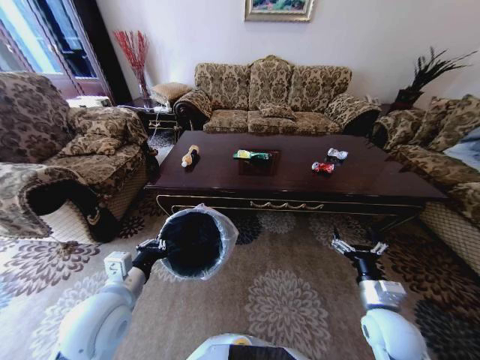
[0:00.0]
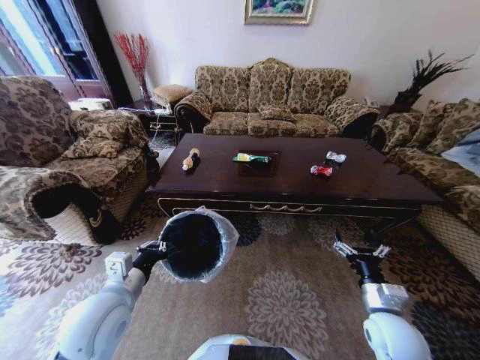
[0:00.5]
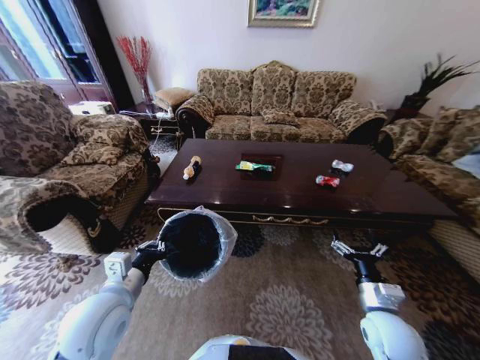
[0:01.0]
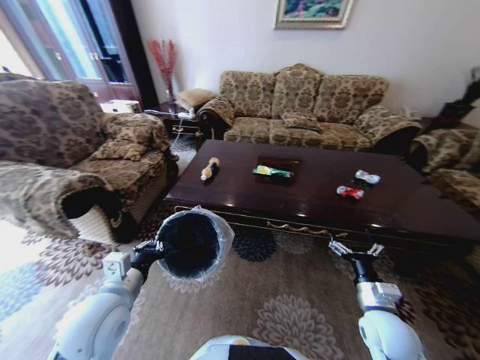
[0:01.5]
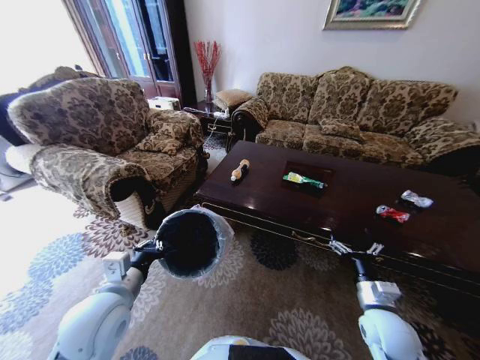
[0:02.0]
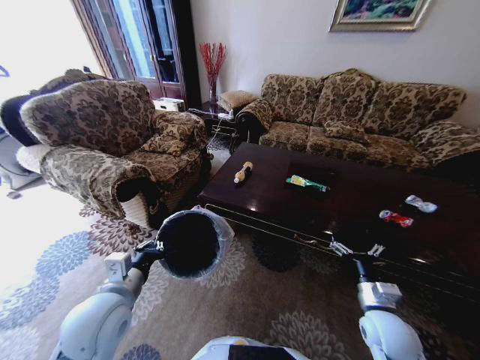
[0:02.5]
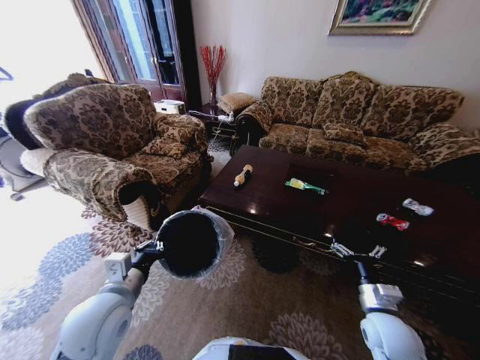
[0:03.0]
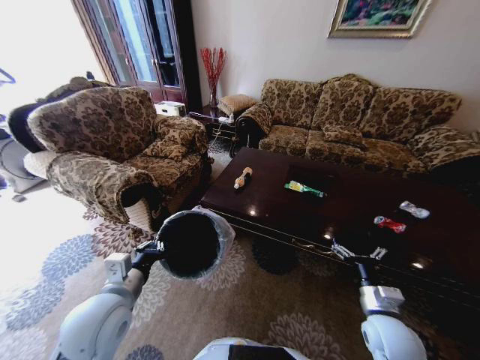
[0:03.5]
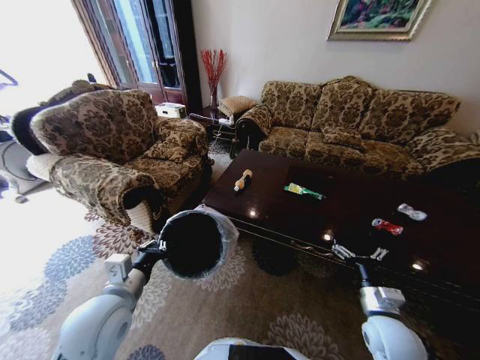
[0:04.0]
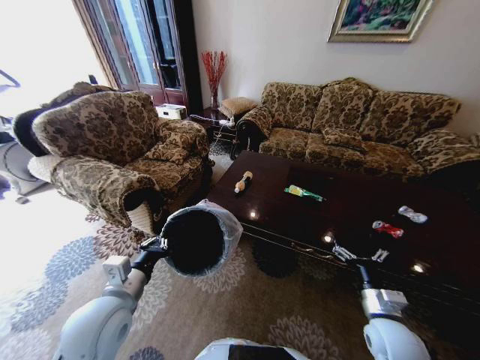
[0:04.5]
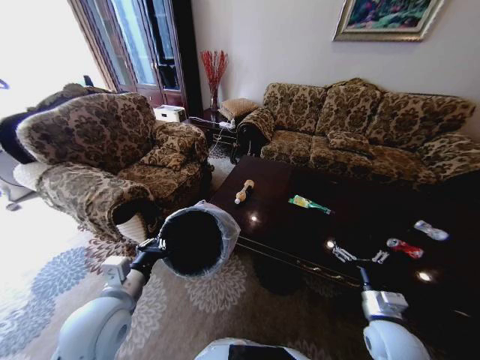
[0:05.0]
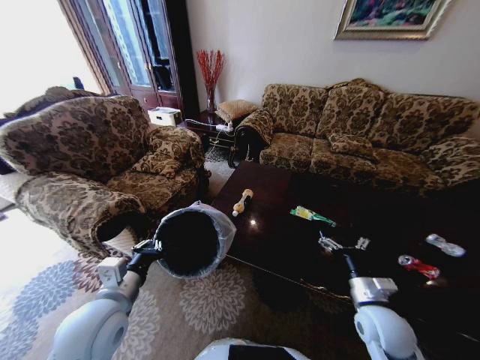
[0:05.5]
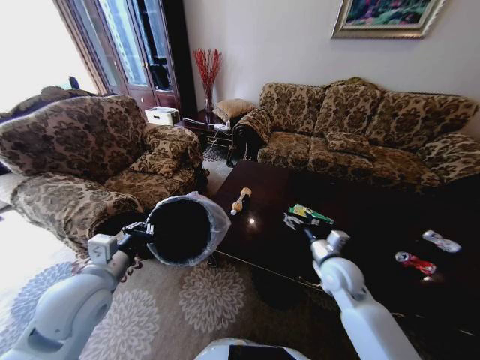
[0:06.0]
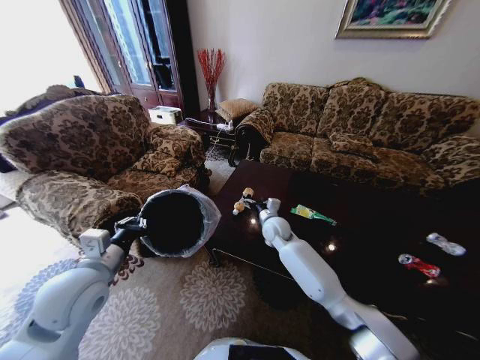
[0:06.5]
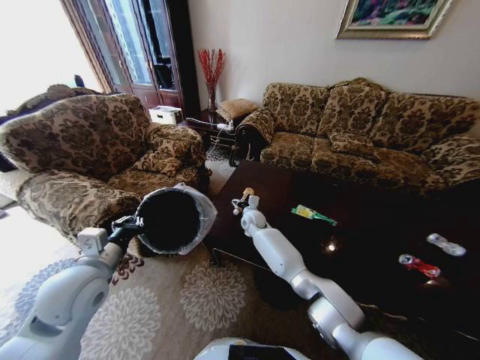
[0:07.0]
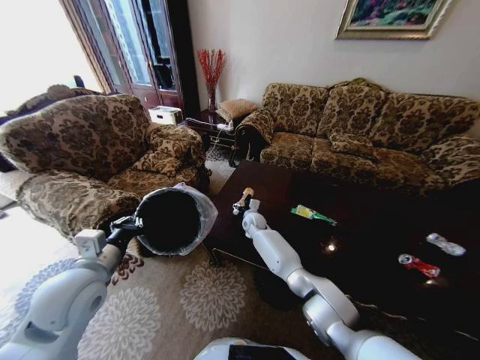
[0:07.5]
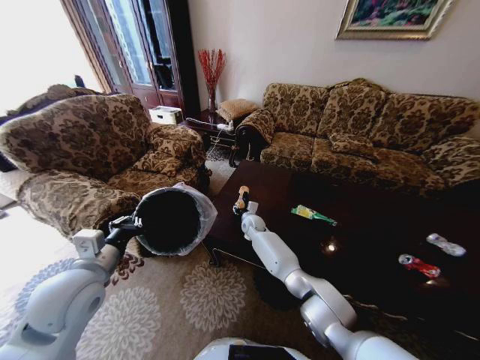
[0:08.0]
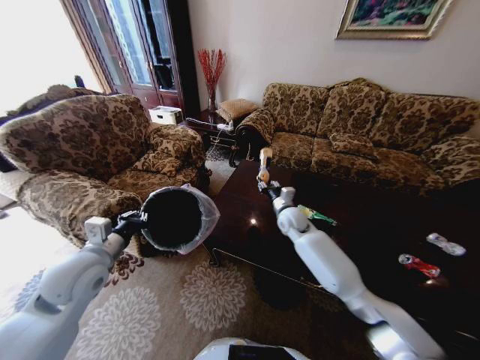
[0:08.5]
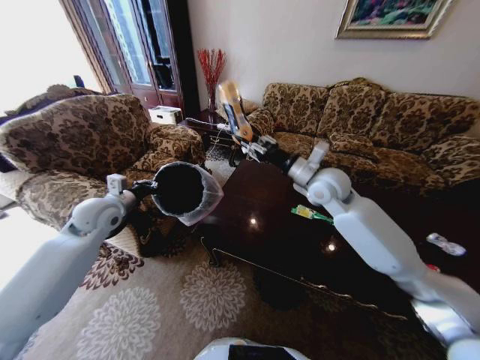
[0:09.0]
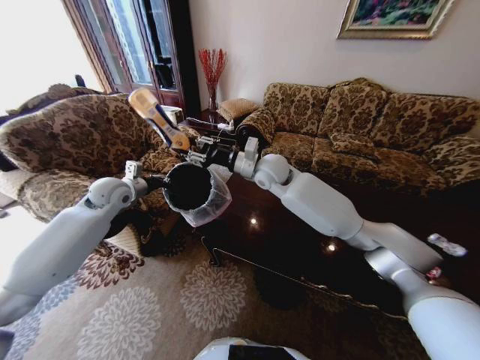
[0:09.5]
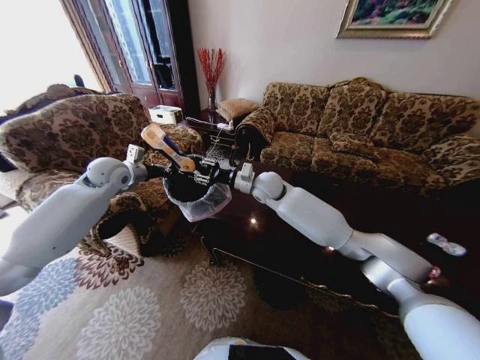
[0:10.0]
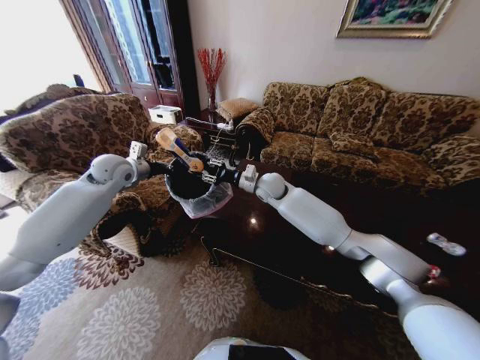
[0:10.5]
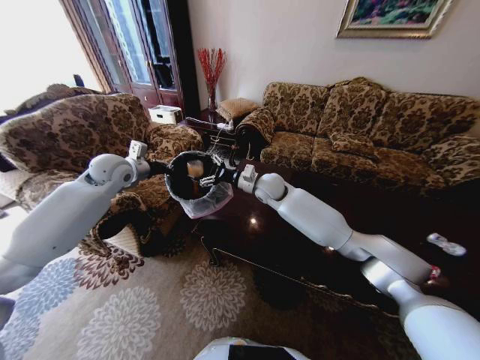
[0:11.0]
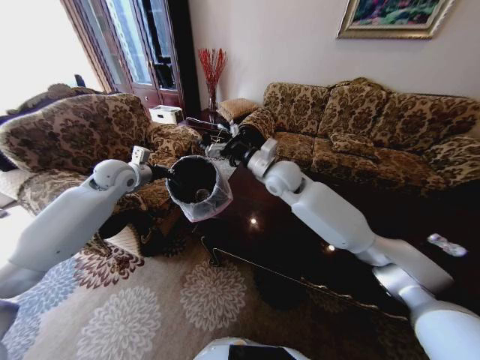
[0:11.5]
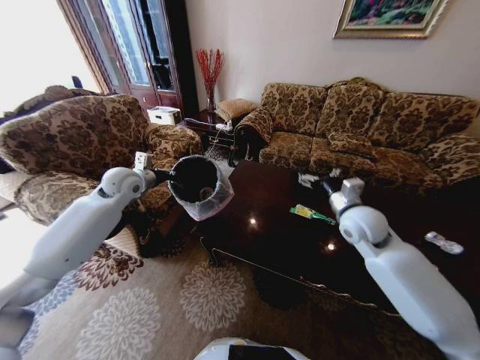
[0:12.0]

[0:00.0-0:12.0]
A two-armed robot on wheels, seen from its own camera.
Task of the whole recording: Move to the front of the table and place the trash on the table into the trash bin.
0:04.0 to 0:06.0: The right gripper goes approximately 15 cm forward and to the left. The left gripper shifts by some 5 cm.
0:06.0 to 0:08.0: The right gripper moves forward, to the left and downward, approximately 35 cm, and closes.
0:08.0 to 0:10.0: The left gripper goes about 30 cm forward; the right gripper shifts about 25 cm upward.
0:10.0 to 0:12.0: The right gripper is displaced to the right and backward by some 25 cm, and opens its fingers.

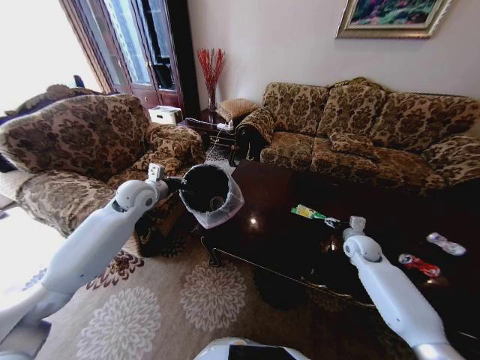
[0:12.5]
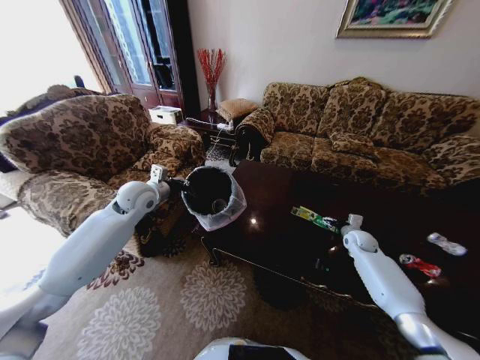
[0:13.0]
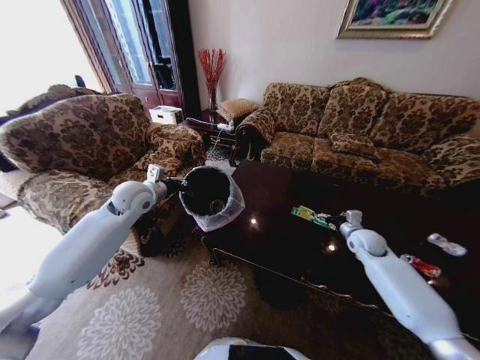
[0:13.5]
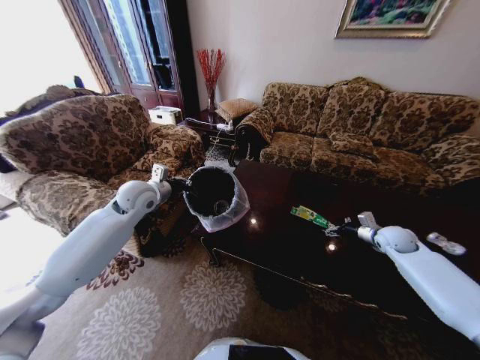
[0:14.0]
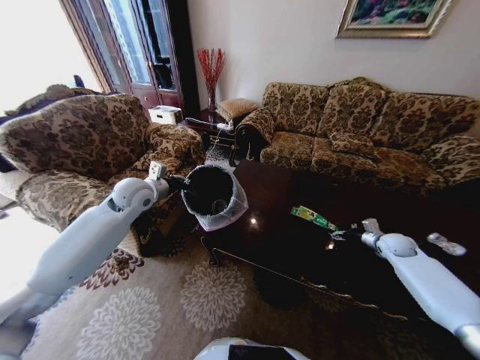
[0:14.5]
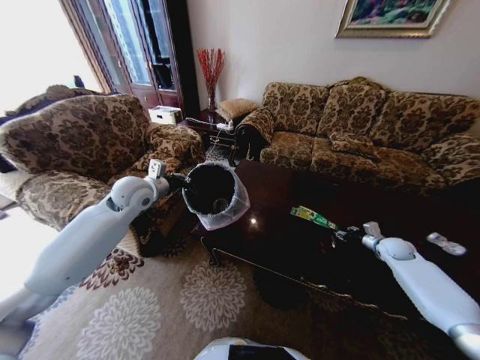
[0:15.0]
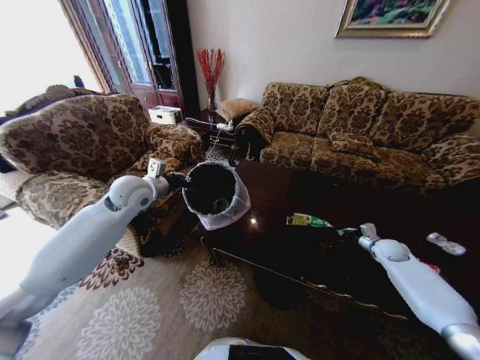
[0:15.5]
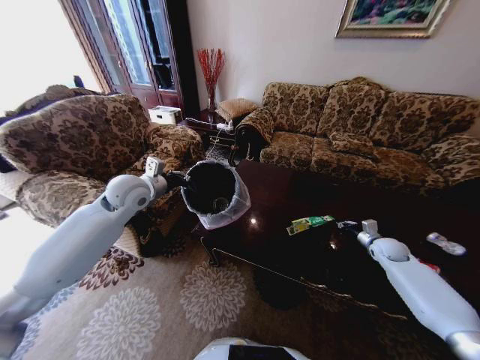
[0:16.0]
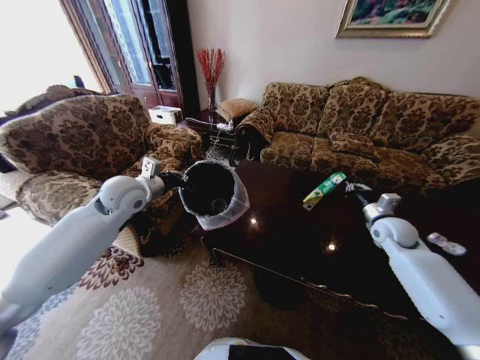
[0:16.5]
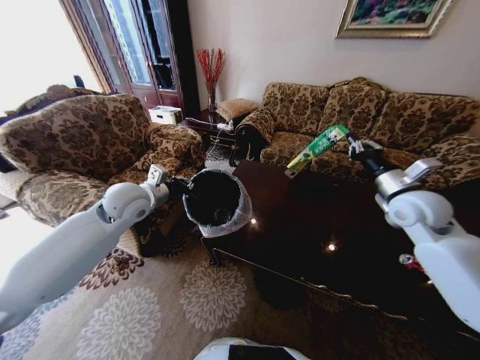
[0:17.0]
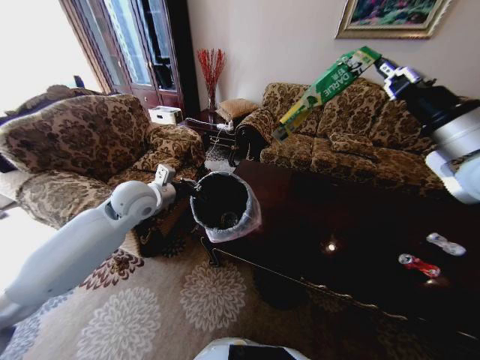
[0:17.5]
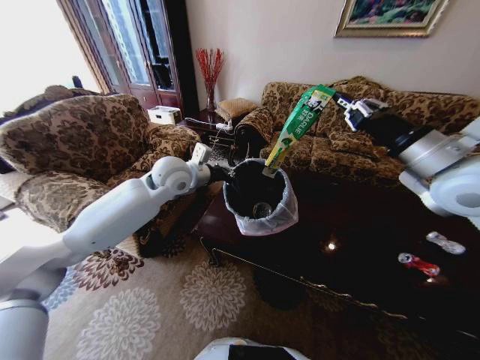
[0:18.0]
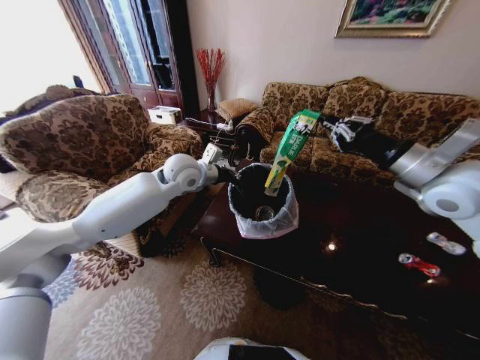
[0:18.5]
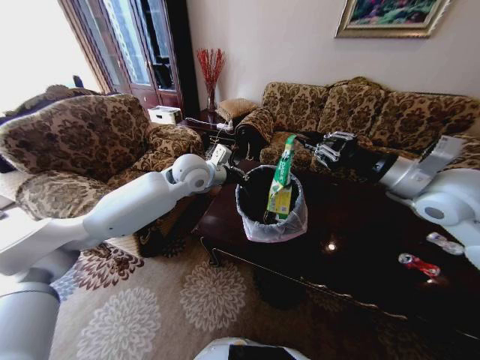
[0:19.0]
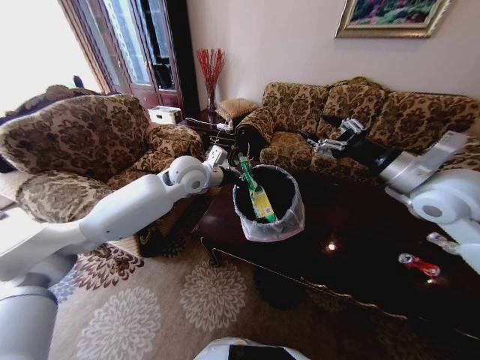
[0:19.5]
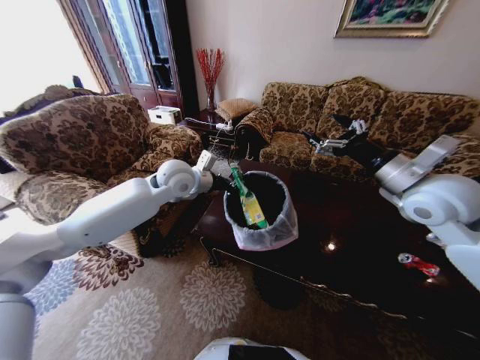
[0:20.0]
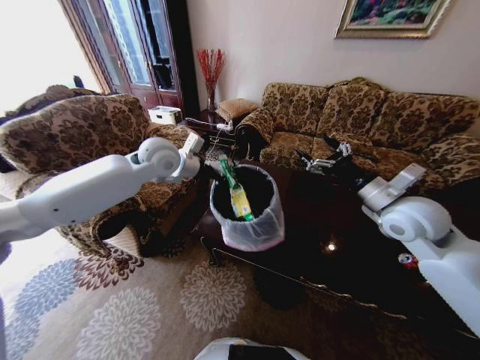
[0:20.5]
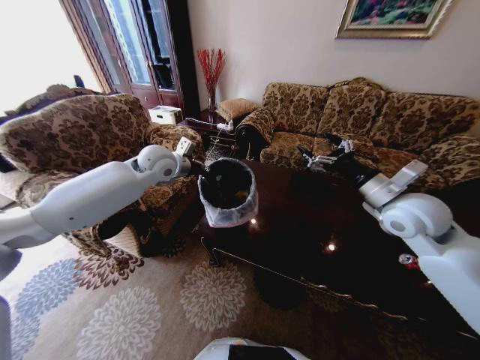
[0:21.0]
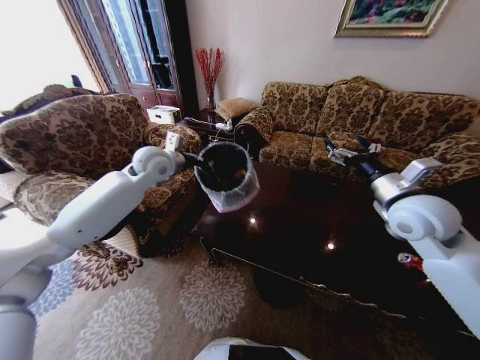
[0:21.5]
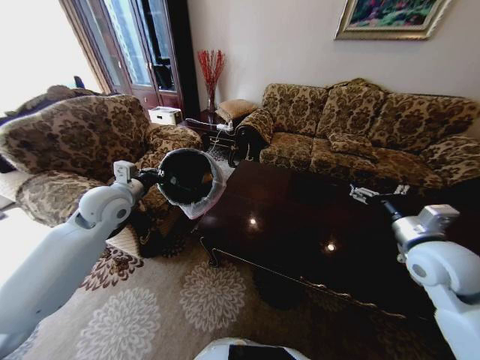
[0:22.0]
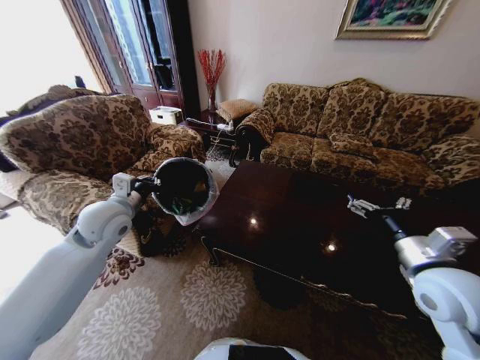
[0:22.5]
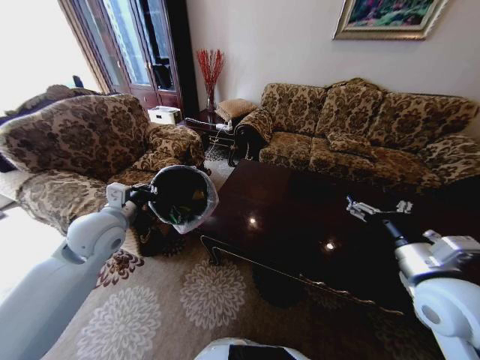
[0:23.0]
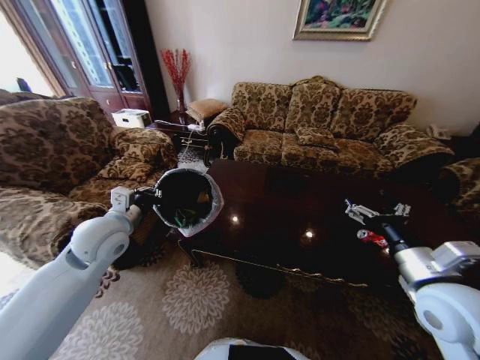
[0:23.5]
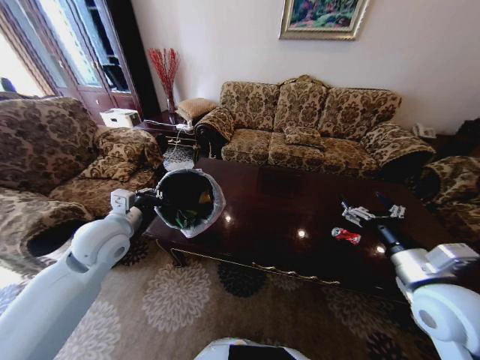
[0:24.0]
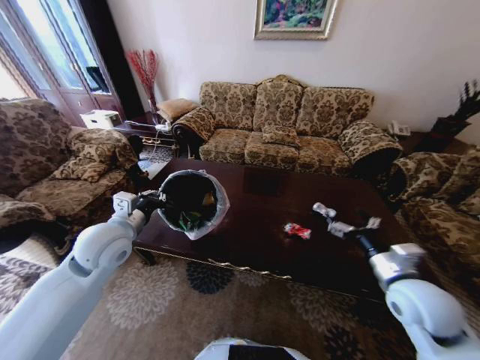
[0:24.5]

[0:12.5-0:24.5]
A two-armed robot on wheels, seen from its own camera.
Task of the whole recording: Move to the front of the table and place the trash on the table into the trash bin.
0:12.5 to 0:14.5: The right gripper travels to the right by about 15 cm.
0:14.5 to 0:16.5: The right gripper travels upward and to the left by approximately 10 cm, and closes.
0:16.5 to 0:18.5: The right gripper moves upward and to the left, some 25 cm. The left gripper shifts roughly 15 cm to the right and forward.
0:18.5 to 0:20.5: The right gripper shifts approximately 10 cm downward, and opens up, while the left gripper shifts about 5 cm to the left.
0:20.5 to 0:22.5: The right gripper goes roughly 15 cm backward and downward, while the left gripper heads backward, to the left and downward, covering some 20 cm.
0:22.5 to 0:24.5: The right gripper shifts about 5 cm downward; the left gripper moves backward, roughly 5 cm.

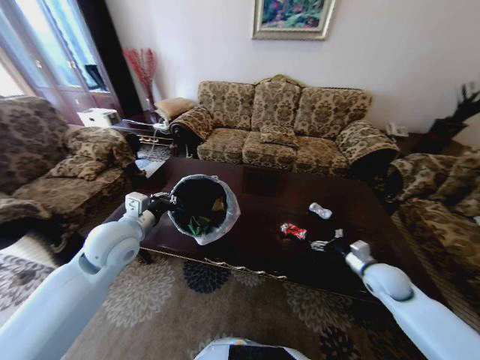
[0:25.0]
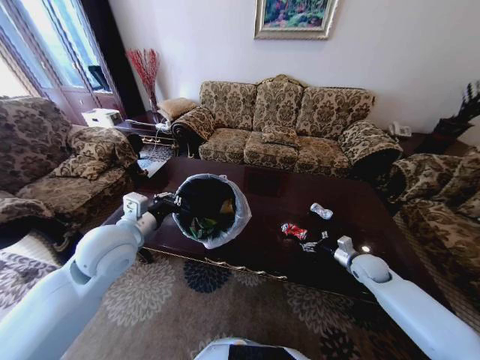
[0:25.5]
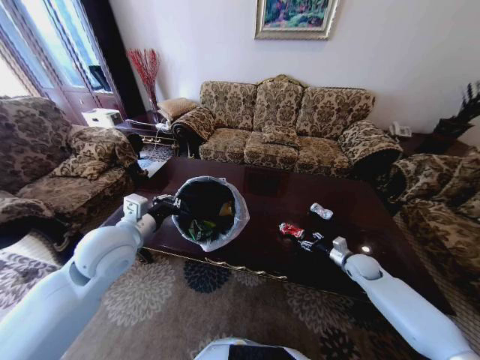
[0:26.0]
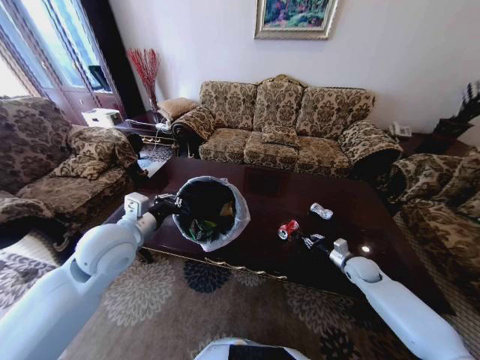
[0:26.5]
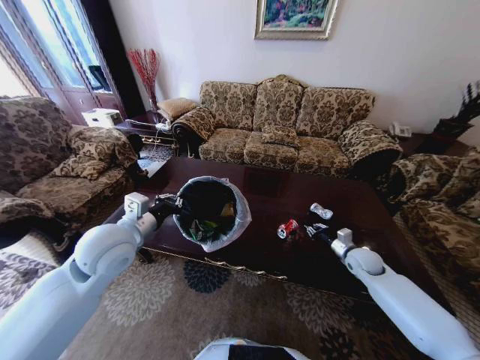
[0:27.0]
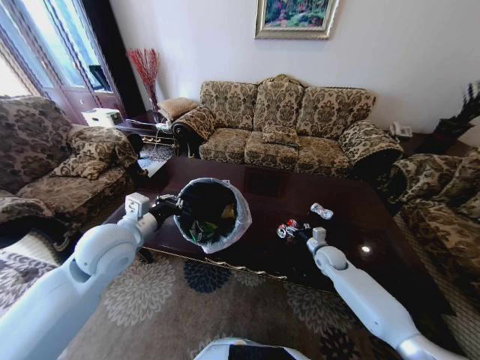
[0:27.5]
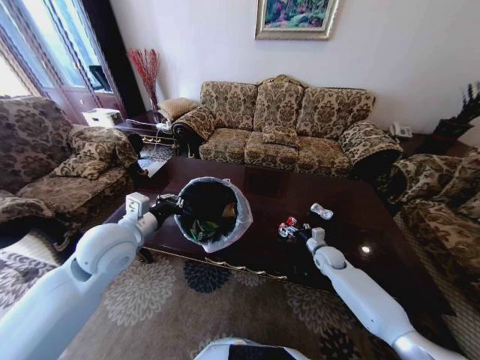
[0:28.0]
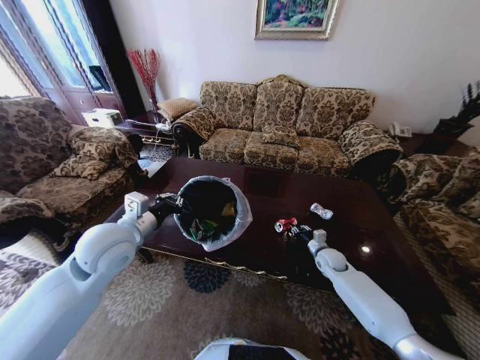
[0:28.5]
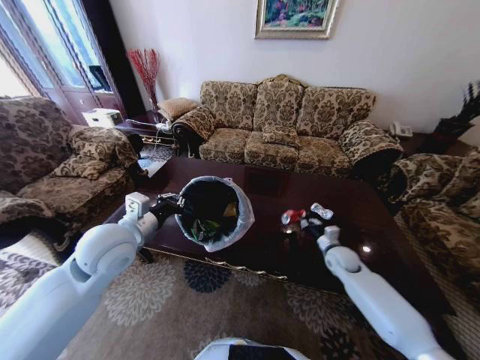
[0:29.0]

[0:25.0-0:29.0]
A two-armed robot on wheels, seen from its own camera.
Task of the whole recording: Move to the front of the table and place the trash on the table into the trash bin.
0:25.0 to 0:27.0: The right gripper goes approximately 10 cm forward, and closes up.
0:27.0 to 0:29.0: The right gripper moves to the left, about 5 cm, and opens, then closes once more.
